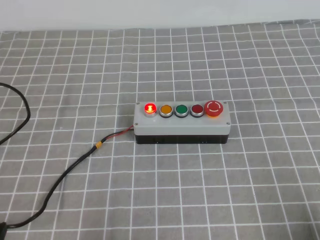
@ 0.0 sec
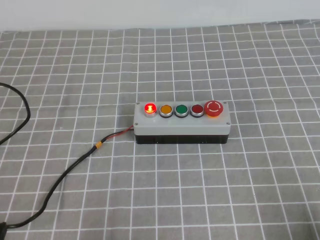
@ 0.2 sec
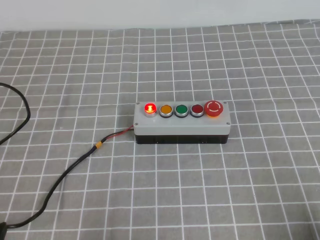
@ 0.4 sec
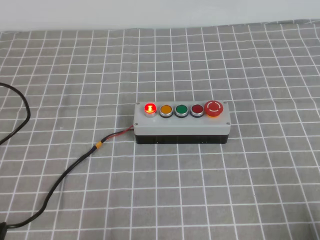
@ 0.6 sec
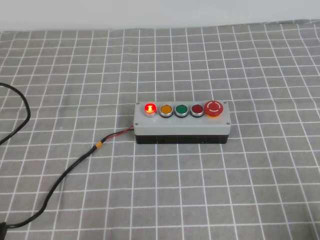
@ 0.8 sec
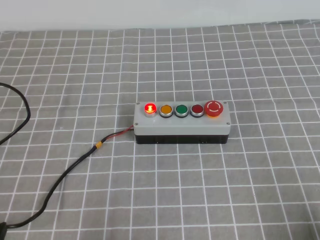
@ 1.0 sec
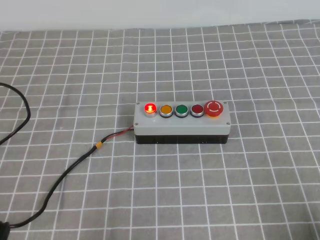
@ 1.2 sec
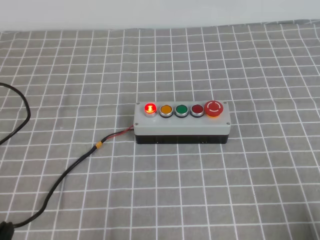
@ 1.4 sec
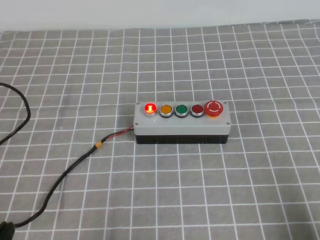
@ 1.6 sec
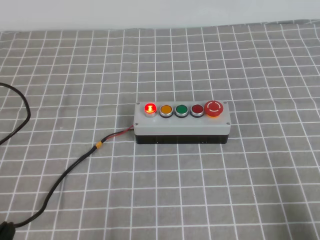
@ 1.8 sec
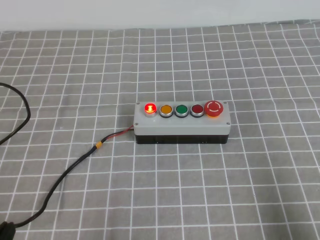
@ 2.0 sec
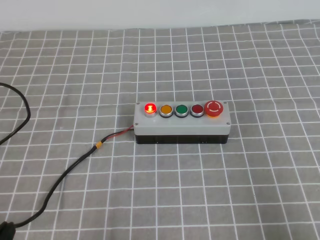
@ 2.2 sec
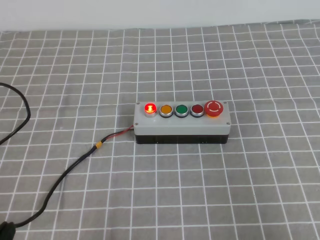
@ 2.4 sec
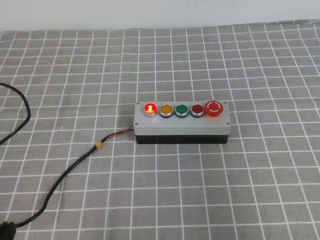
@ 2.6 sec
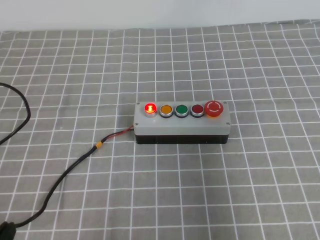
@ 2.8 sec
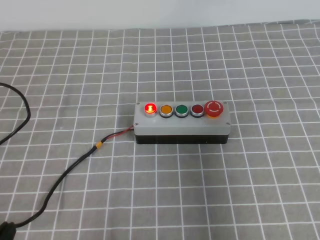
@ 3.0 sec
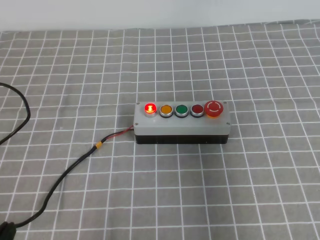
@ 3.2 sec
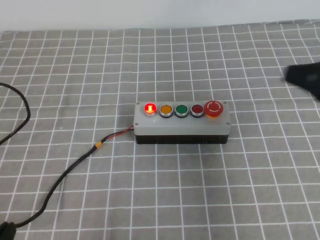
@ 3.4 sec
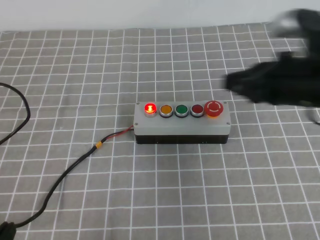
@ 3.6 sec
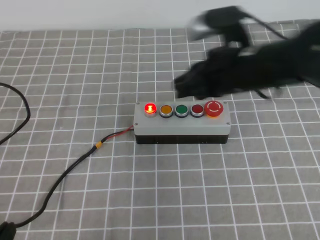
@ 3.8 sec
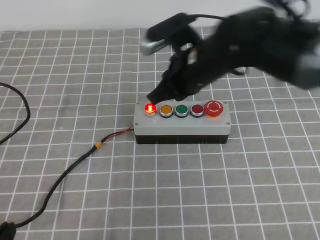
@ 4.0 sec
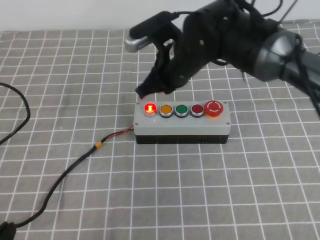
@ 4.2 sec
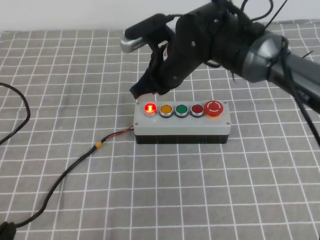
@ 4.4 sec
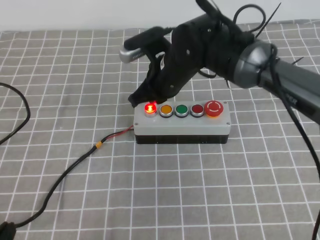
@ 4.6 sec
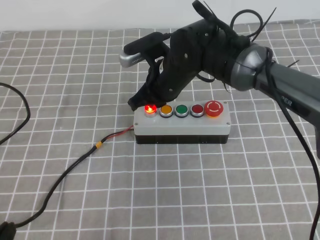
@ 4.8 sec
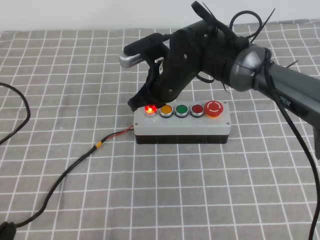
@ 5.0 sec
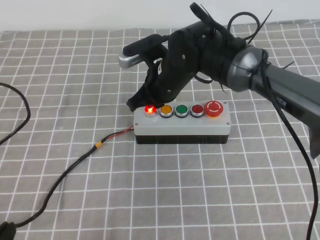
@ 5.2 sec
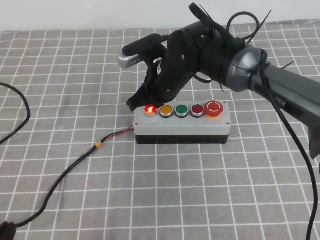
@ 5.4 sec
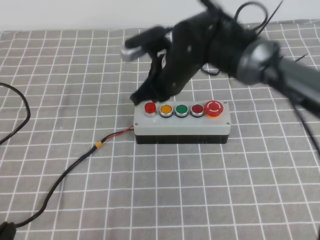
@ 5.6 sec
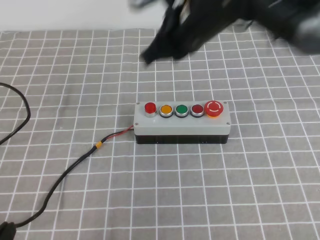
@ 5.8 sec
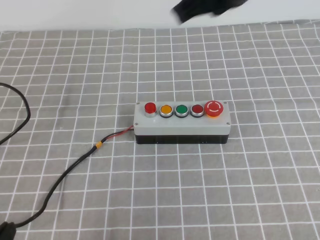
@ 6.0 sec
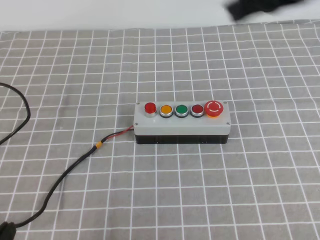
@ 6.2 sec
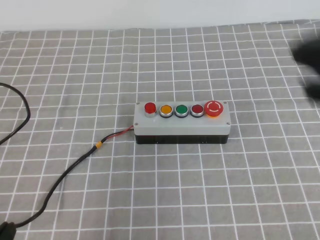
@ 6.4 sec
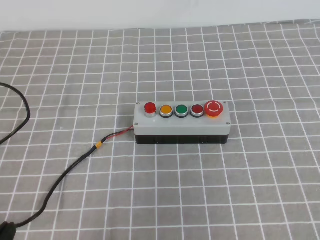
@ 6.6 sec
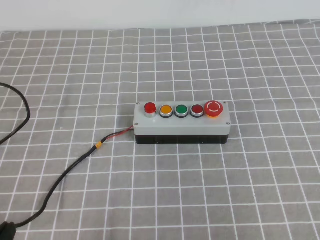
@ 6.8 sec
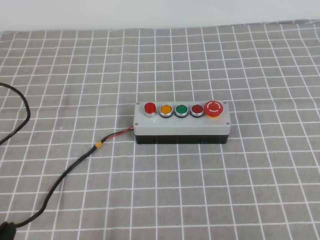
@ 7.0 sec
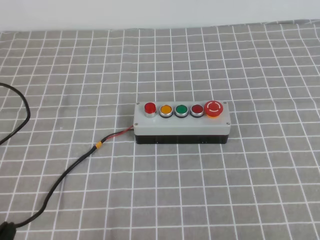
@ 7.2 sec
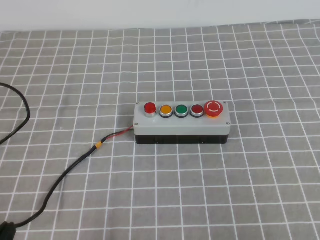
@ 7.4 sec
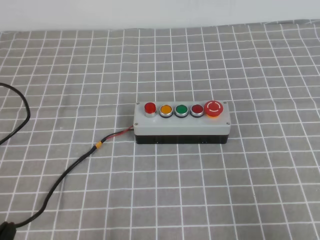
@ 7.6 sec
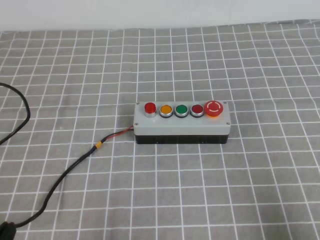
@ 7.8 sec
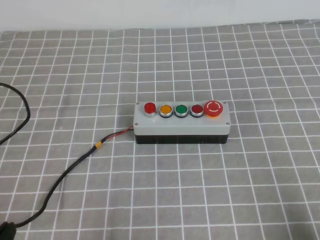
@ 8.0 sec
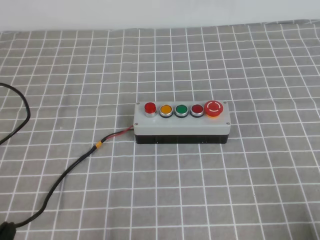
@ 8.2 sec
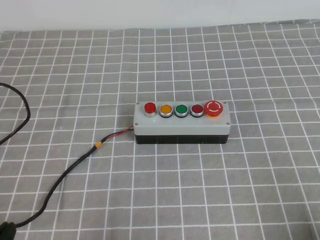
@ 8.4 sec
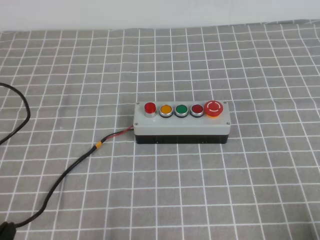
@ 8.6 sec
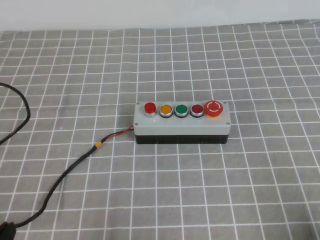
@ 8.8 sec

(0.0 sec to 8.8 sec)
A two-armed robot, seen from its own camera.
Task of the whole recording: press the button switch on the grey tablecloth with the right gripper to turn off the button.
Step, 0.0 sec - 8.8 sec: Press the button to turn off.
1.4 sec - 3.0 sec: The right gripper shifts roughly 20 cm upward.
3.0 sec - 4.4 sec: The right gripper moves to the left and forward, some 40 cm.
4.4 sec - 5.8 sec: The right gripper goes some 10 cm upward.
5.8 sec - 7.4 sec: The right gripper moves backward and to the right, approximately 40 cm.
7.4 sec - 8.8 sec: The right gripper goes about 15 cm downward.
